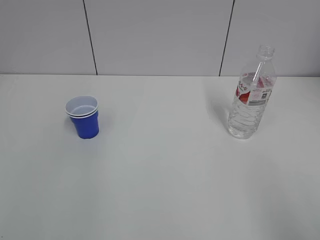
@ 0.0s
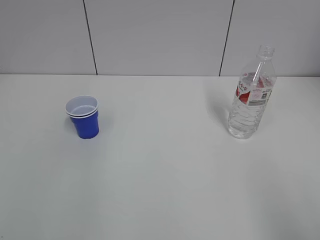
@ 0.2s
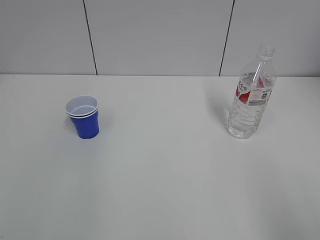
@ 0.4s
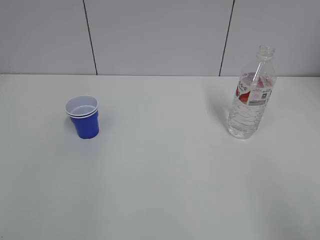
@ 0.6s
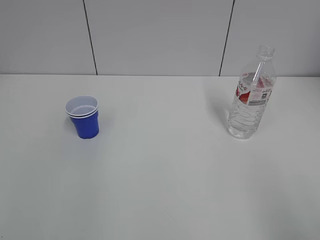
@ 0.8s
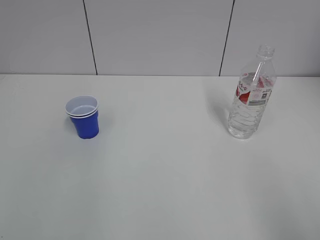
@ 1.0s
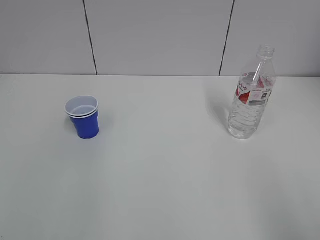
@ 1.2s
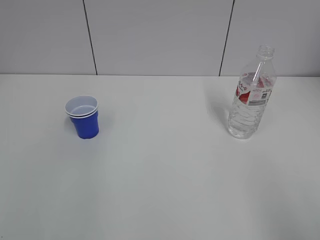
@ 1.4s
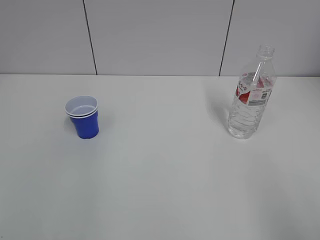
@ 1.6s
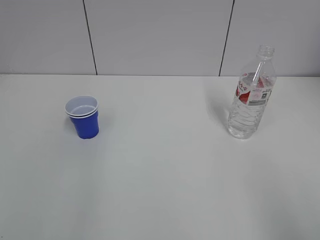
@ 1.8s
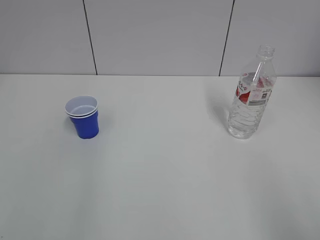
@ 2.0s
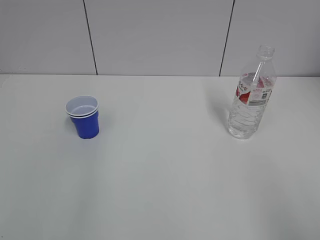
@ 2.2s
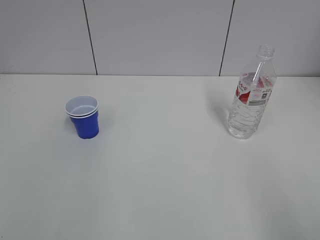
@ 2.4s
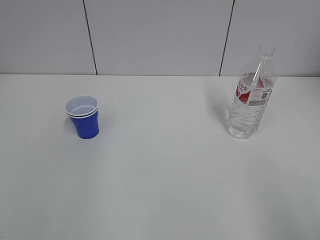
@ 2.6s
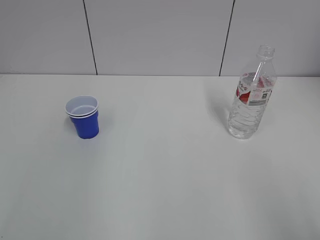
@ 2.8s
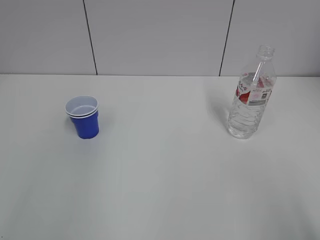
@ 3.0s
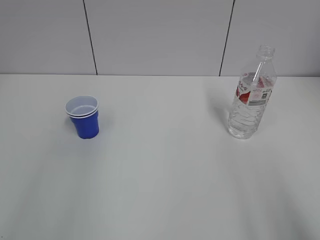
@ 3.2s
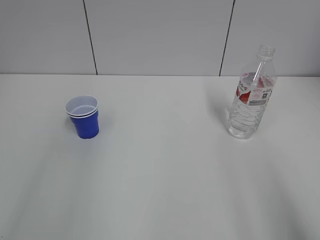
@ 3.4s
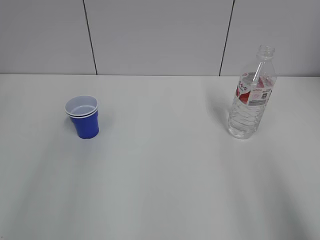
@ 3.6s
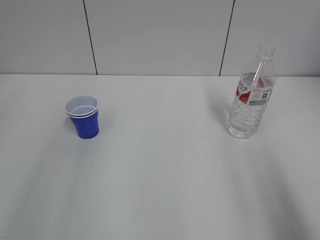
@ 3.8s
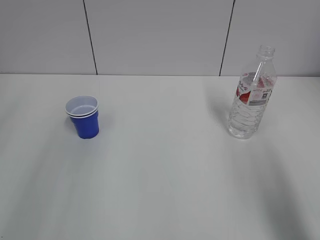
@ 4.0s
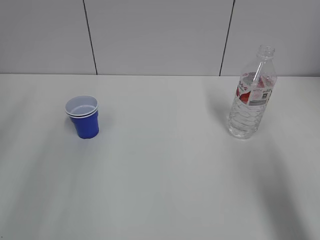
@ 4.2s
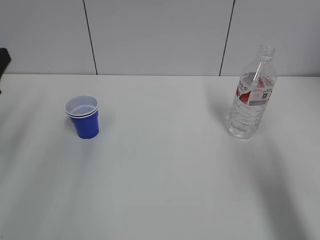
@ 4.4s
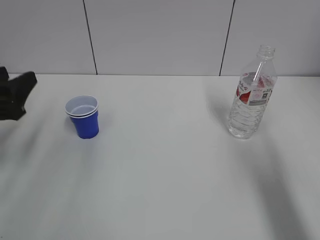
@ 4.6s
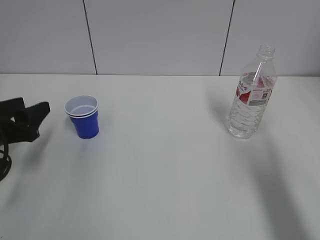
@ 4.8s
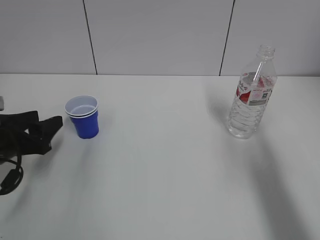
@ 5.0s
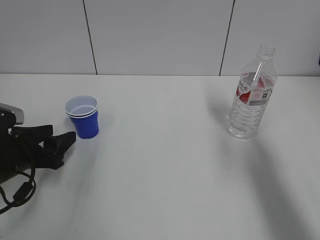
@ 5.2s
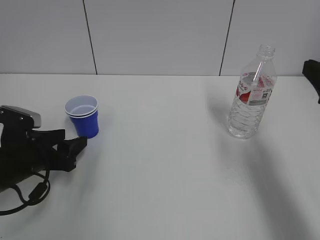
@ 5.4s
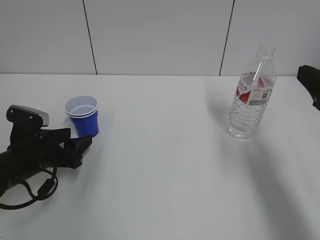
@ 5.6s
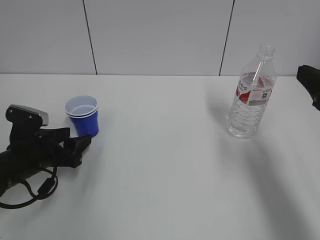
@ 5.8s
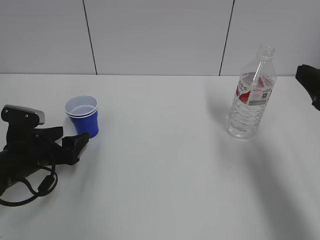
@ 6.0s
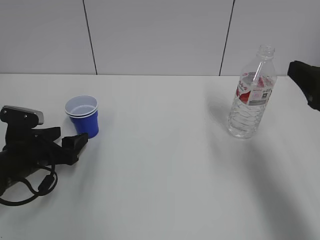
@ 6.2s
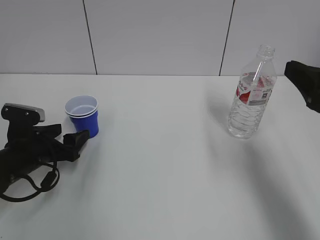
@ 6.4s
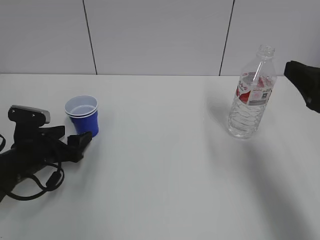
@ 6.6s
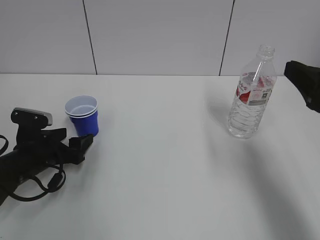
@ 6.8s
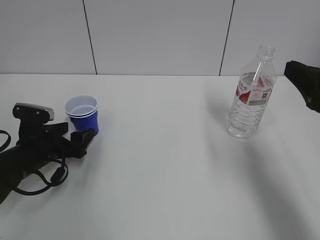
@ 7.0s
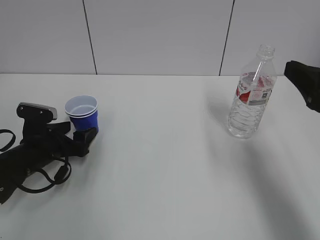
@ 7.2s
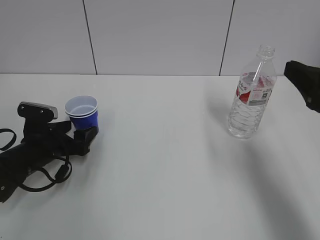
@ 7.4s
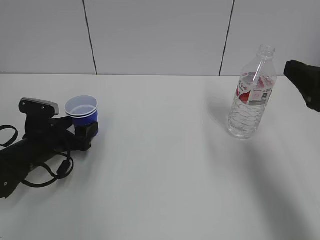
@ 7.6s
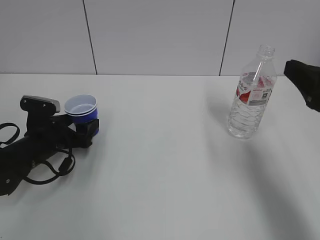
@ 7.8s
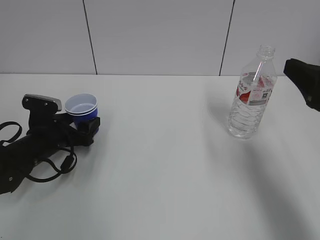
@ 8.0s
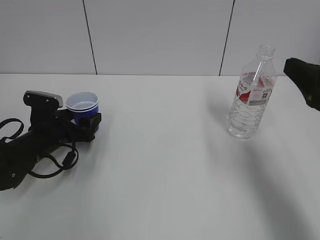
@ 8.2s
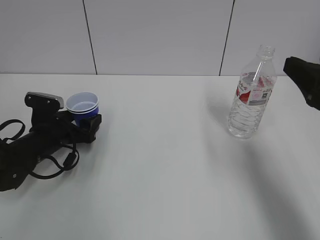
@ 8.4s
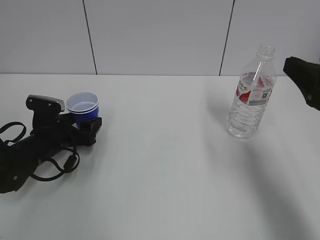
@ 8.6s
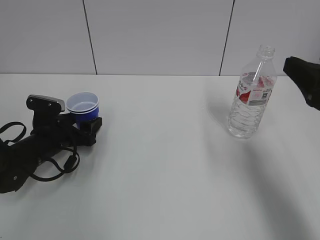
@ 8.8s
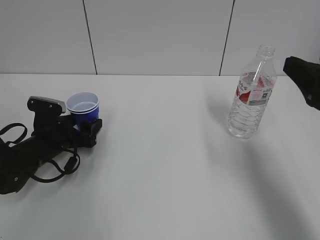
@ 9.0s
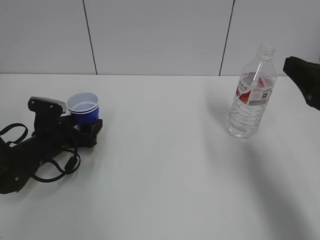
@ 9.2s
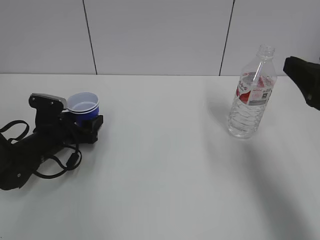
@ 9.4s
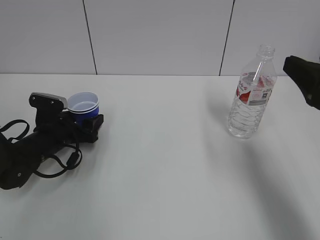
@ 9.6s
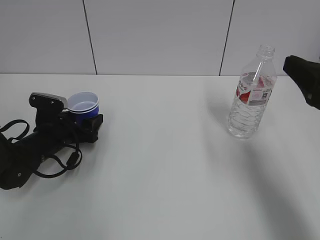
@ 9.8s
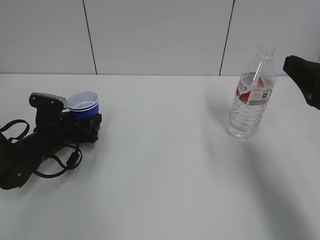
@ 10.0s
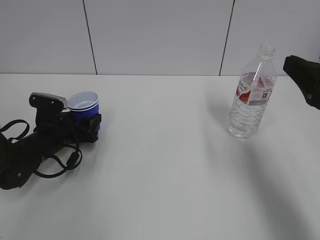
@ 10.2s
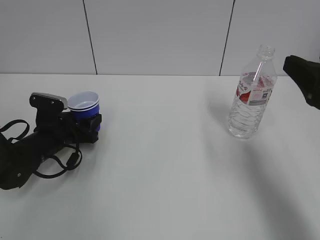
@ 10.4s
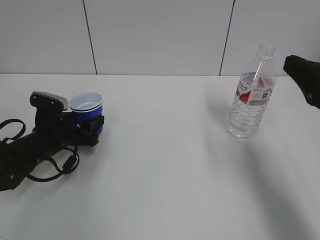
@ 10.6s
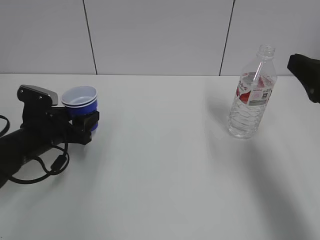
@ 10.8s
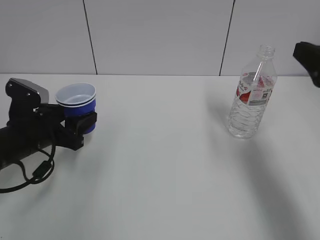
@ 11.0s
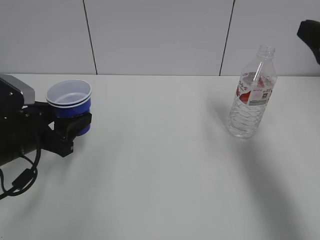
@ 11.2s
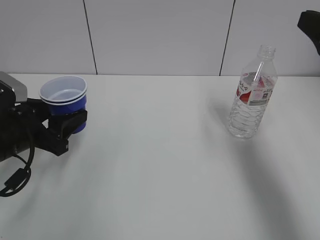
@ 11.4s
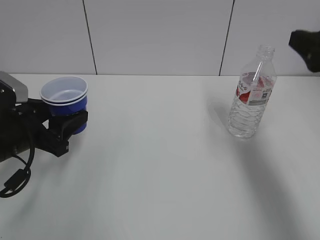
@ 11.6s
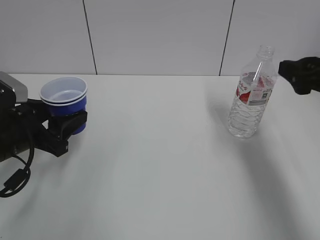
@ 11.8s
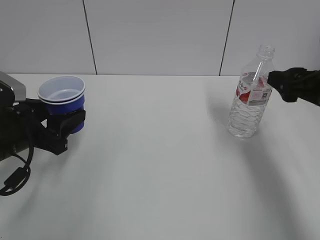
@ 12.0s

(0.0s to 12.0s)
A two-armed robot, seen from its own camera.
Step, 0.0s - 8.2s: Grab the paper cup with the left hand.
Step, 8.4s - 11.0s: Lift the paper cup with the left hand.
3.0s - 4.4s: The left gripper goes roughly 30 cm forward and downward. Meanwhile the right gripper heads forward, covering about 15 cm.
4.4s - 6.0s: The right gripper heads forward and downward, covering some 10 cm. Meanwhile the left gripper goes some 15 cm downward.
6.0s - 7.6s: The grippers stay close to where they were, moving slightly.
7.6s - 9.0s: There are only small adjustments of the grippers.
9.0s - 10.4s: Neither gripper changes place.
10.4s - 12.0s: The right gripper moves forward, approximately 5 cm. The left gripper shifts roughly 15 cm upward and backward.

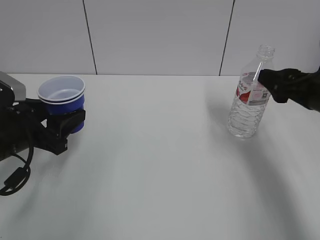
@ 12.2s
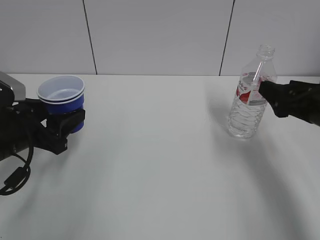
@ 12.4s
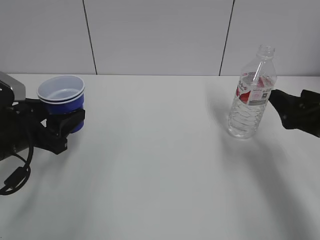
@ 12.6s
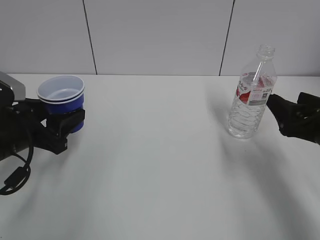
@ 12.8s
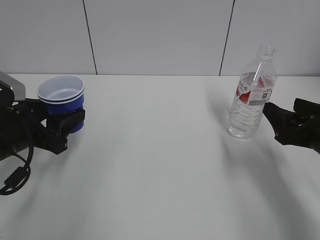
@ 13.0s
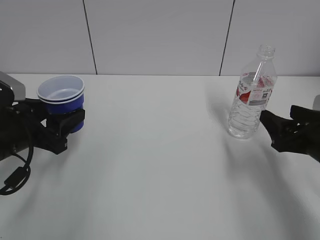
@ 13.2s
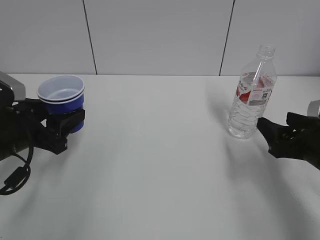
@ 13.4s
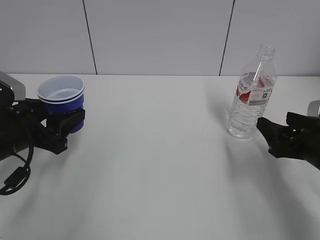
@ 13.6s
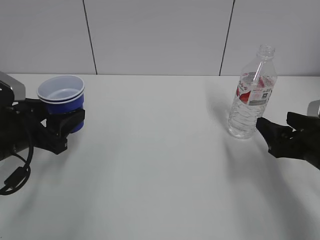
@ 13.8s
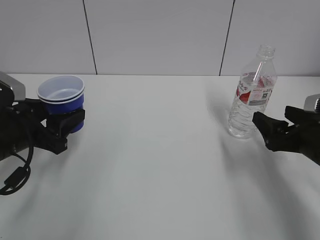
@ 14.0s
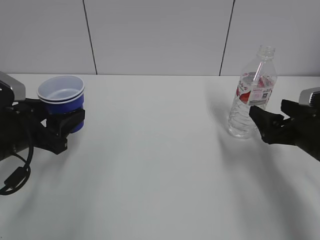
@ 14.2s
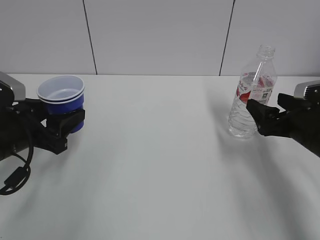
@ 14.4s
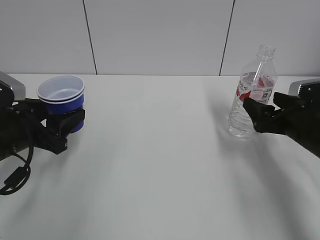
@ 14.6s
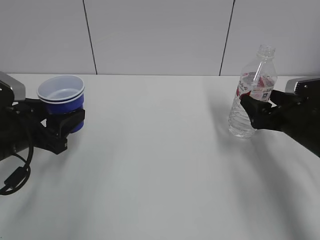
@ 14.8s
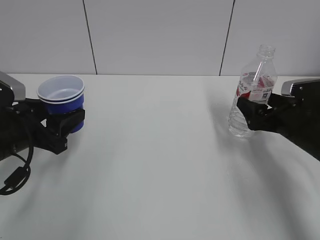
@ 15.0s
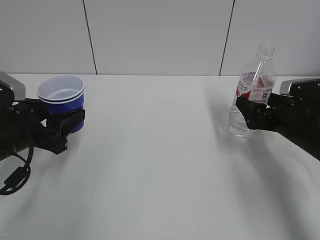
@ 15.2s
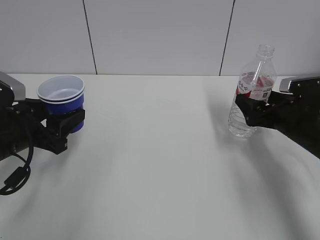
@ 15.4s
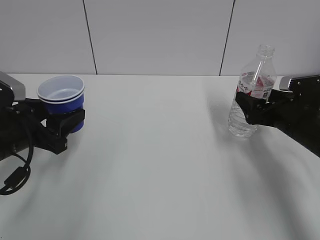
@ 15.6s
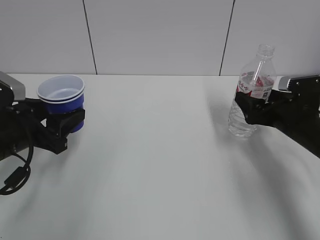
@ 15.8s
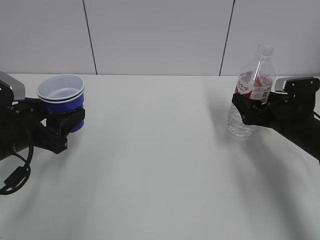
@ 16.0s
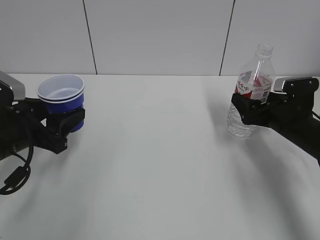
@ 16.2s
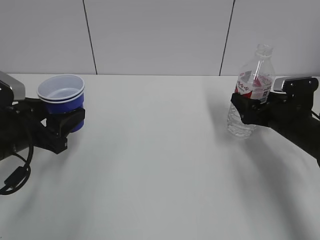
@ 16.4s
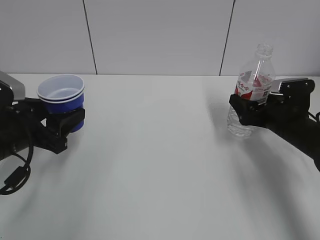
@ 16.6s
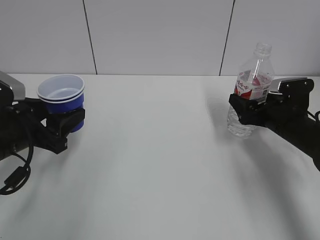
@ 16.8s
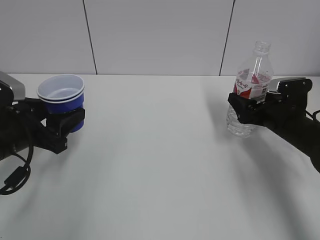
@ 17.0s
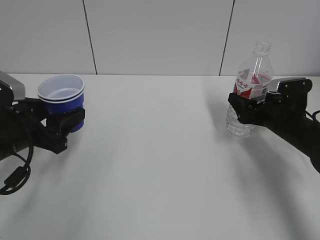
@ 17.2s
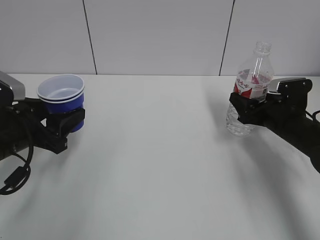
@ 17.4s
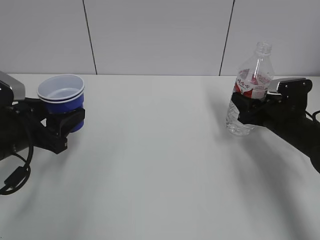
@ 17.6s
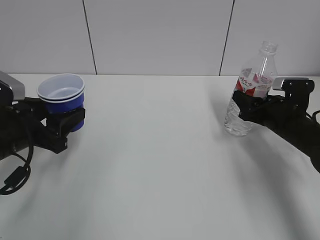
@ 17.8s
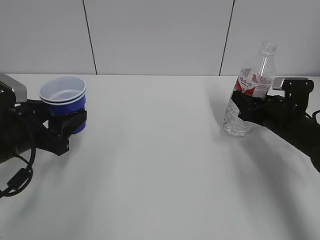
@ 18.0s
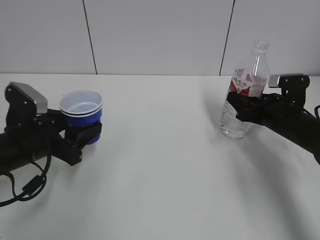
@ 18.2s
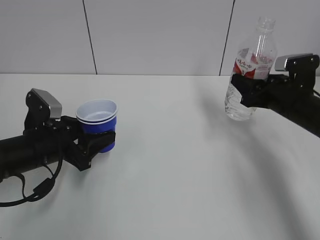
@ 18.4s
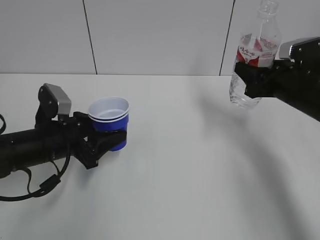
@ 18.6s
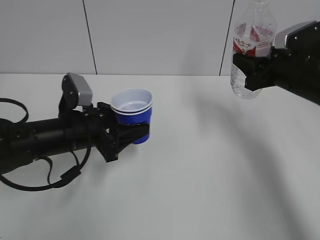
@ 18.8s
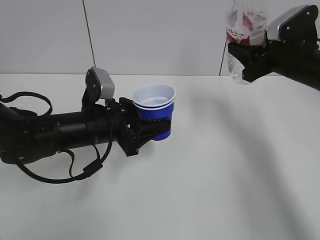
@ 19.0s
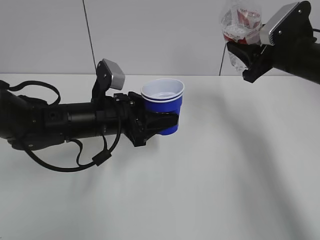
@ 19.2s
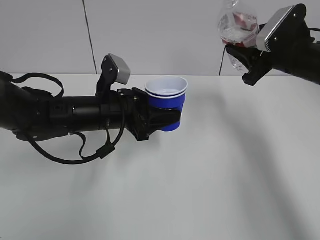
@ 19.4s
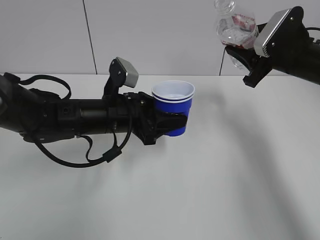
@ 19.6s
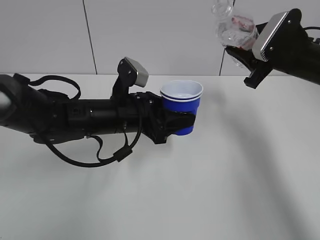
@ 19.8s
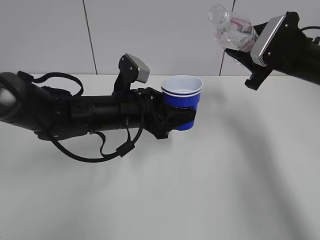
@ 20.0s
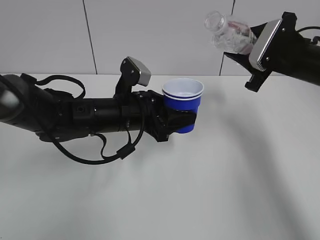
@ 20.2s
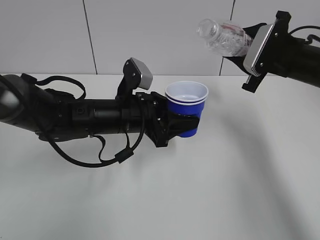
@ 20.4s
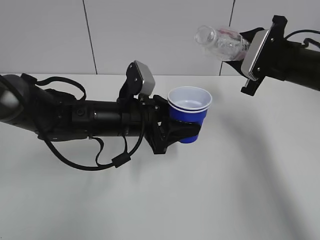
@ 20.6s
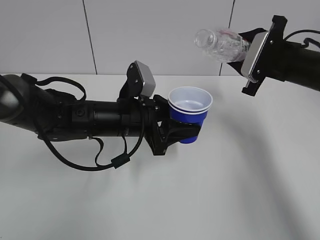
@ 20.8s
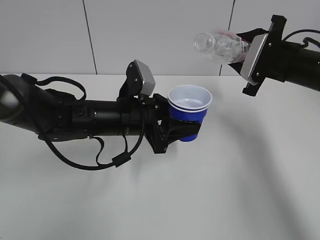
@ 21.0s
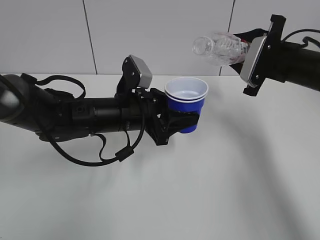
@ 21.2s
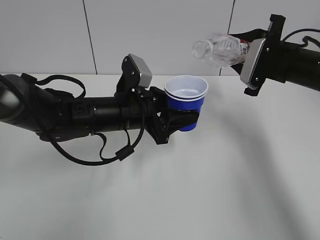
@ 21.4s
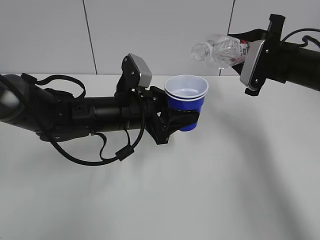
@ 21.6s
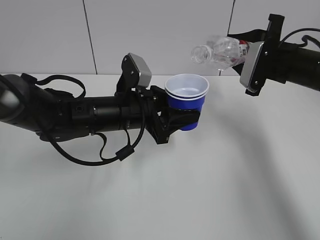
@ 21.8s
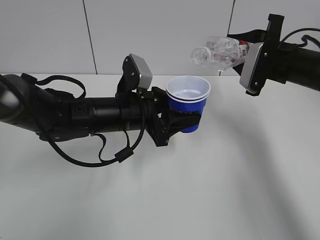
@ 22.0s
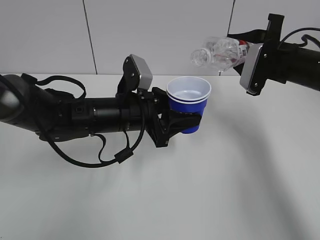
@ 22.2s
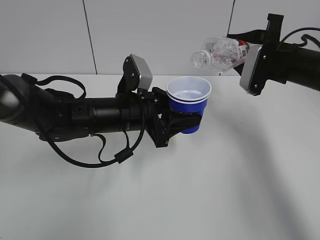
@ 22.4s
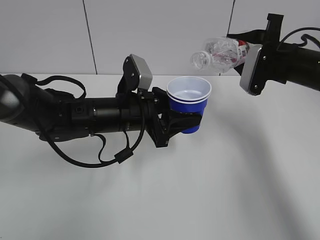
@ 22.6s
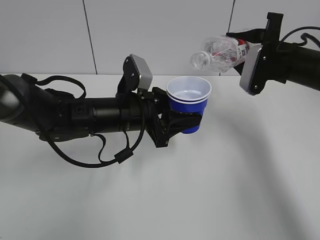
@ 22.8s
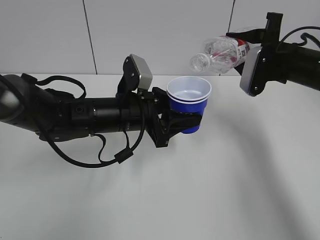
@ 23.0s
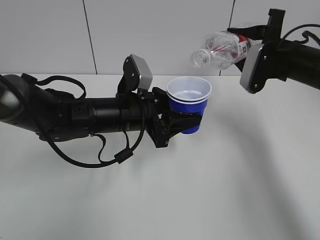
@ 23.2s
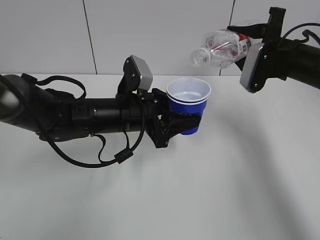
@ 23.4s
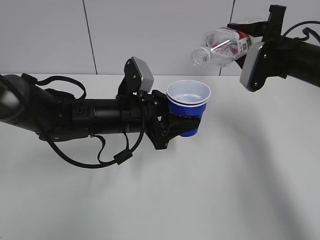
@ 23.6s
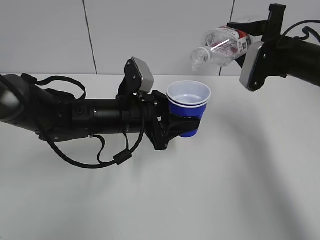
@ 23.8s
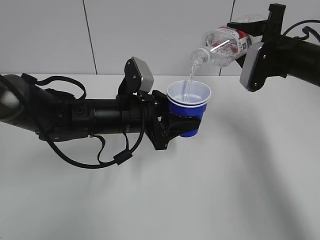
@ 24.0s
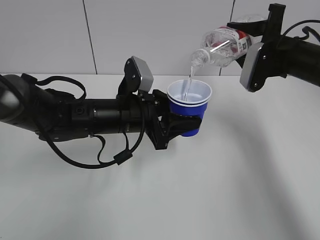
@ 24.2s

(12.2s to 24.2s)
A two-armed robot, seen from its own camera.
Step, 12.2s - 17.6s: Grab the water bottle with the right hand.
12.2s - 13.8s: The right gripper moves downward, approximately 10 cm.
13.8s - 15.2s: The right gripper shifts approximately 10 cm forward.
15.2s - 16.6s: The grippers move only a little.
16.6s - 18.2s: The right gripper closes its fingers.
18.2s - 19.8s: The left gripper travels to the right by about 15 cm; the right gripper moves upward, approximately 10 cm.
21.2s - 24.2s: The grippers stay close to where they were, moving slightly.
